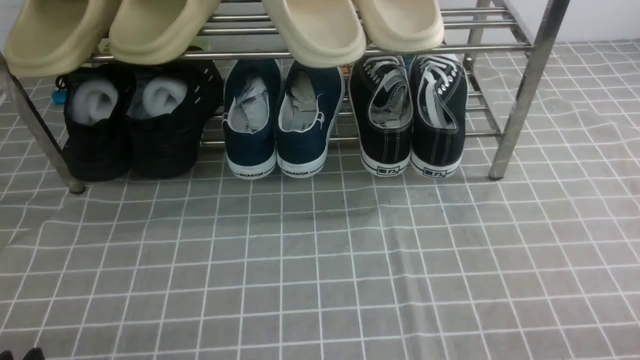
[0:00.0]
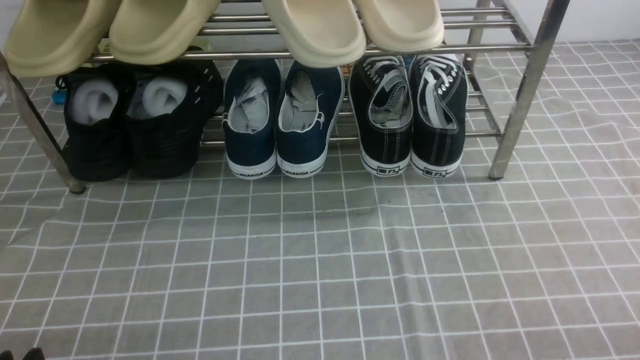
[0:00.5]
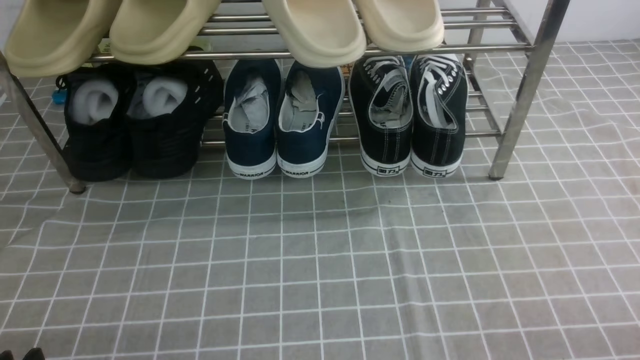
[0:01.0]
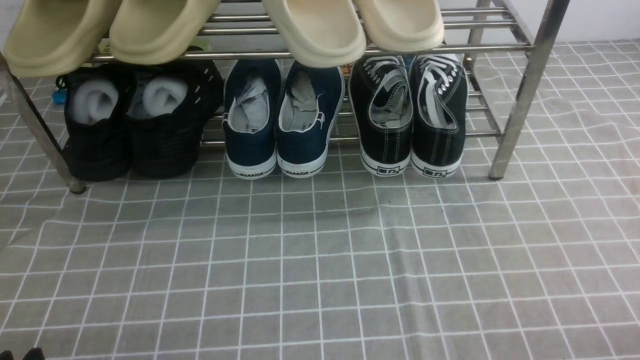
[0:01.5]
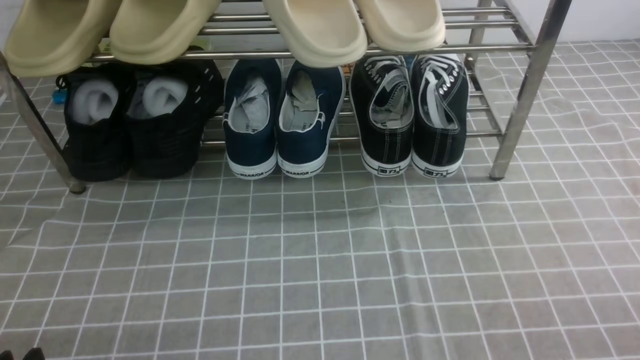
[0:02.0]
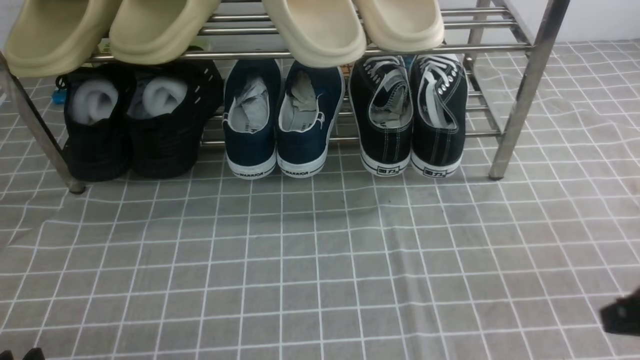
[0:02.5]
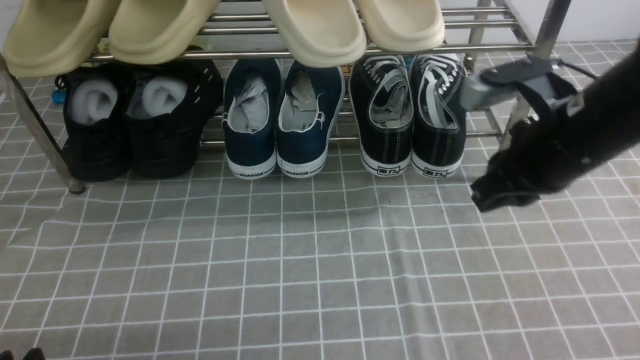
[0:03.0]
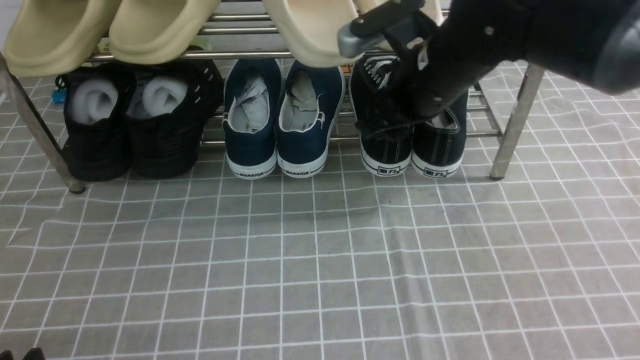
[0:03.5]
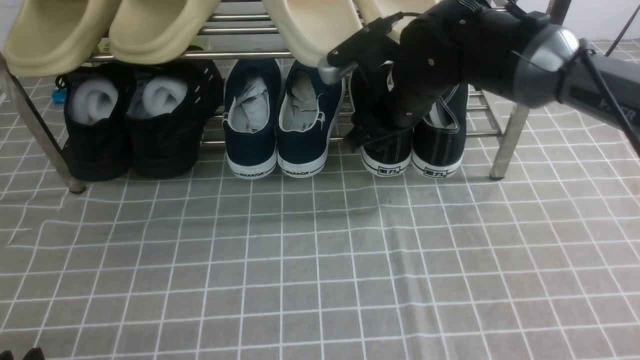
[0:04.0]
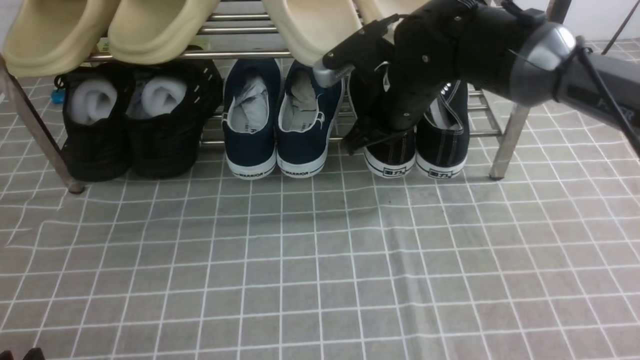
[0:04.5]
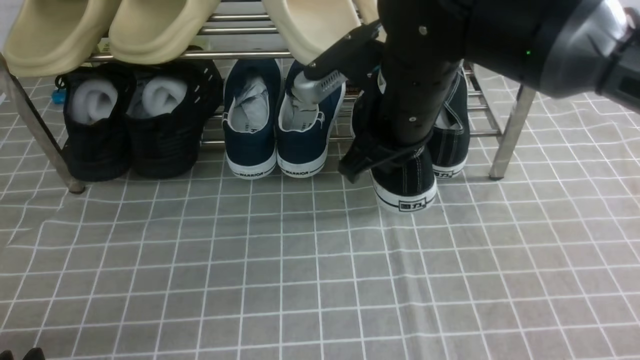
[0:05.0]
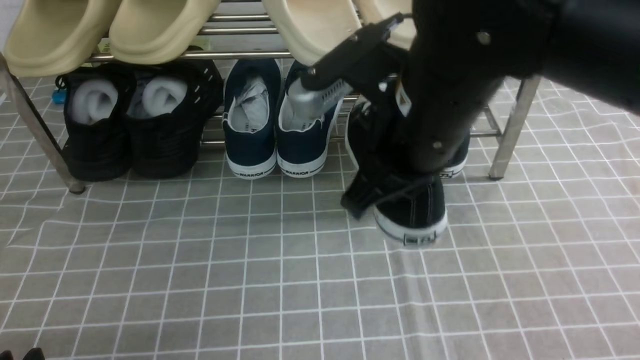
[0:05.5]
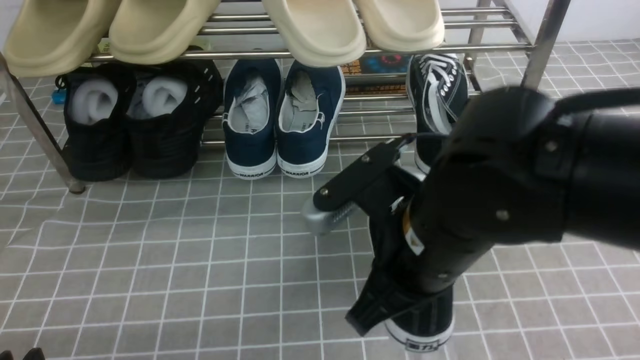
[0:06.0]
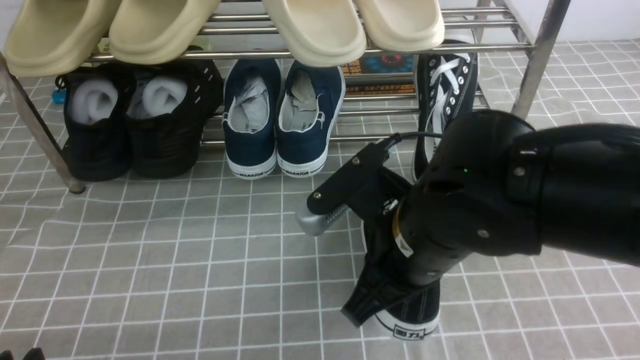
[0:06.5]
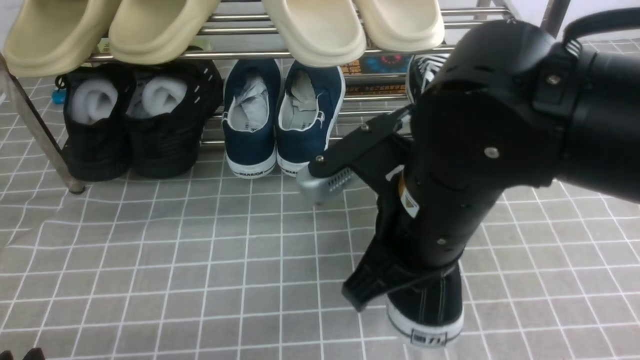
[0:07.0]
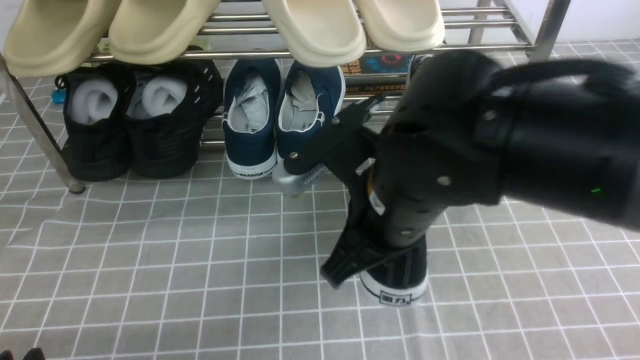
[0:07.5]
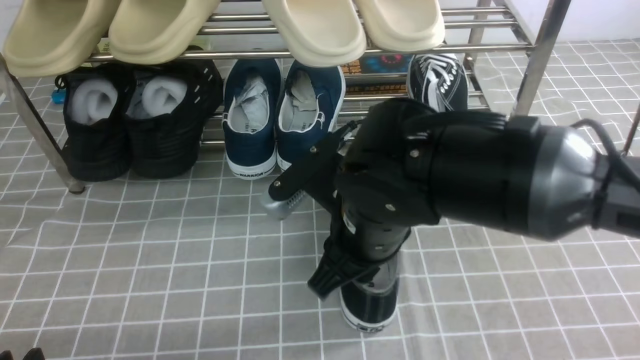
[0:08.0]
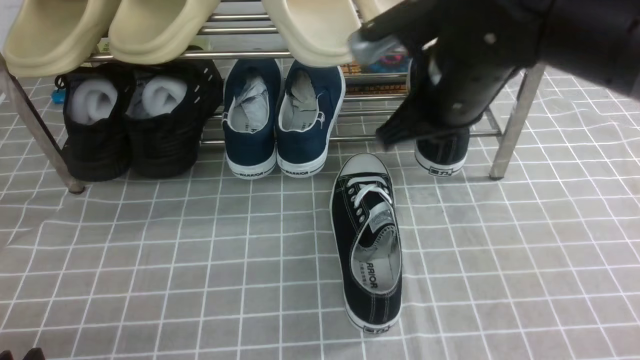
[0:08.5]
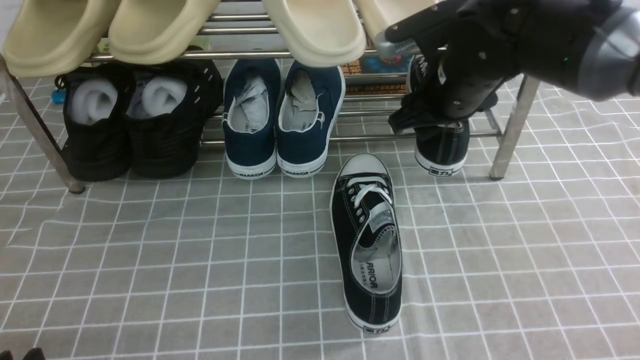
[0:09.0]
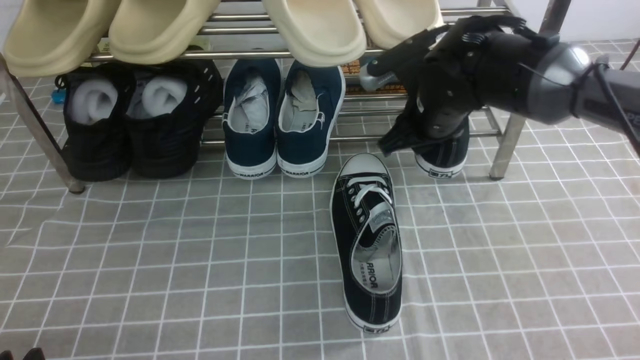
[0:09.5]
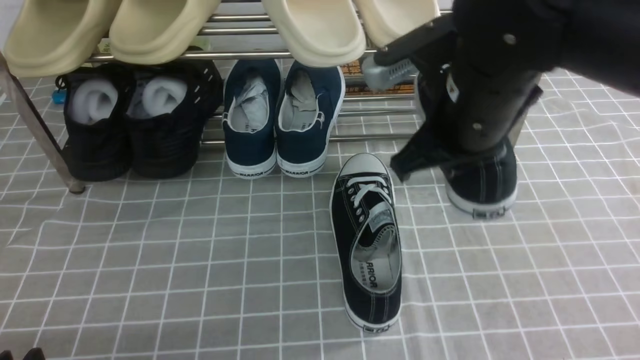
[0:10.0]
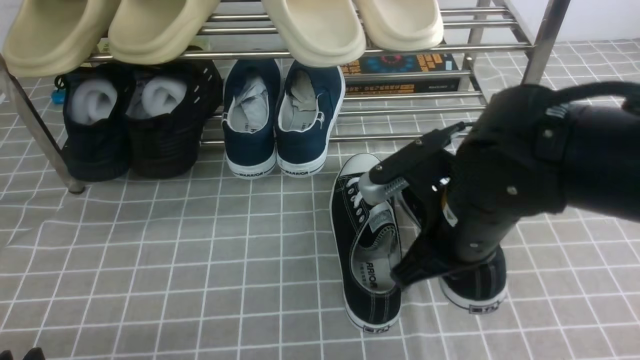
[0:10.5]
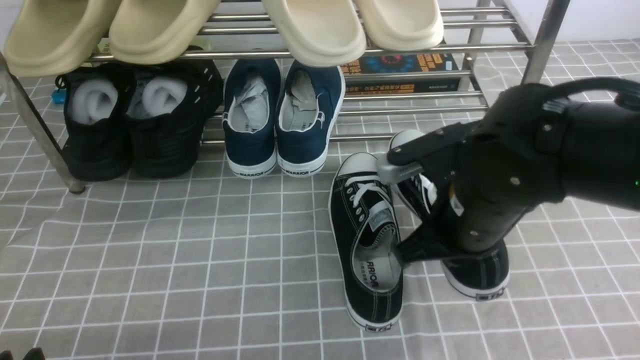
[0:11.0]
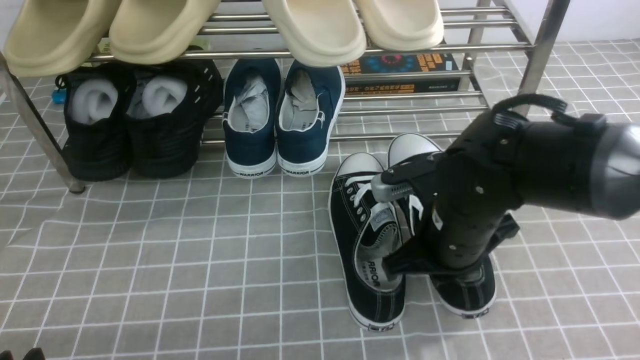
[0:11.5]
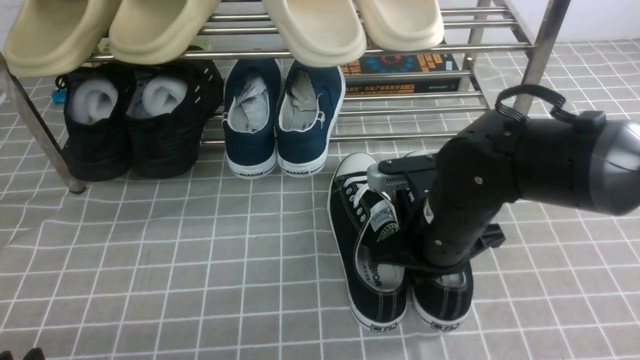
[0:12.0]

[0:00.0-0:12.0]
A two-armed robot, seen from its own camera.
Step, 0:00.0 to 0:04.0: use the right arm to clamp a shoe on the right side of the shoe rack.
Step, 0:04.5 to 0:08.0: use the right arm to take out the clamped shoe from the shoe rack and put it down.
Step, 0:08.5 to 0:09.5: use the right arm to clamp a shoe on the right side of the shoe rack.
0:00.0 to 0:02.0: The right gripper shifts some 5 cm upward.
0:02.0 to 0:04.0: The right gripper shifts about 40 cm forward and to the left, and opens its fingers.
0:04.0 to 0:06.0: The right gripper shifts approximately 20 cm backward, and closes.
0:06.0 to 0:08.0: The right gripper ends up about 5 cm from where it was, and opens its fingers.
0:08.0 to 0:10.0: The right gripper shifts about 5 cm to the right, goes forward and returns, about 15 cm each way, and closes up.
0:10.0 to 0:12.0: The right gripper is displaced downward by about 10 cm.

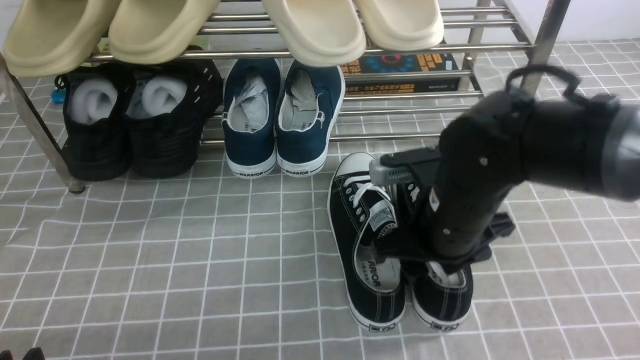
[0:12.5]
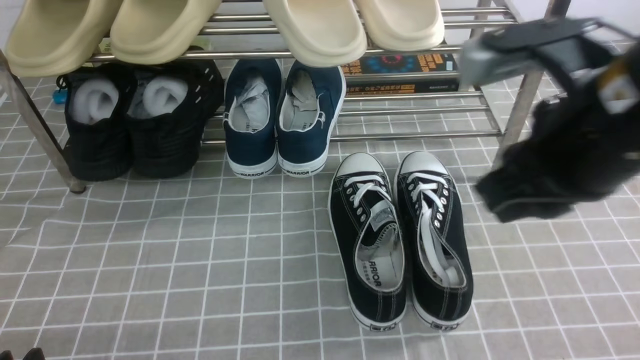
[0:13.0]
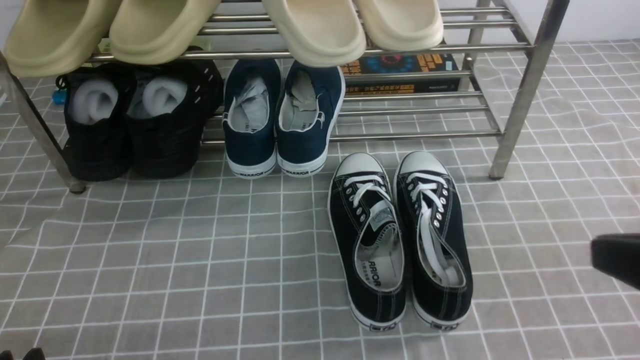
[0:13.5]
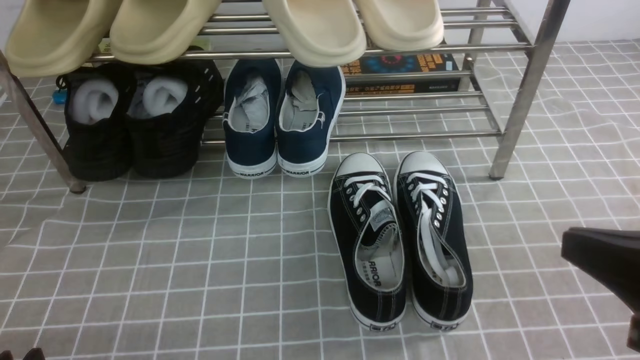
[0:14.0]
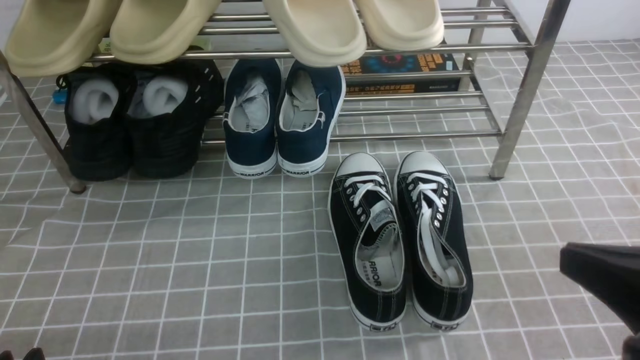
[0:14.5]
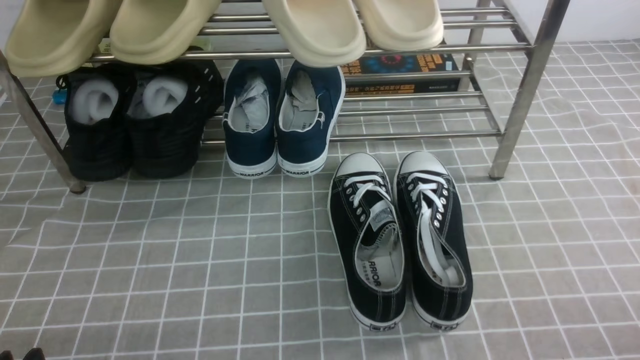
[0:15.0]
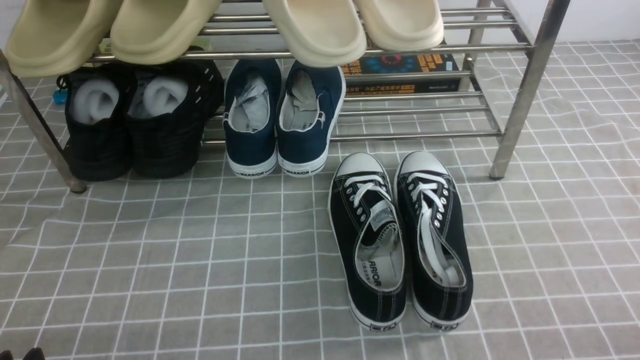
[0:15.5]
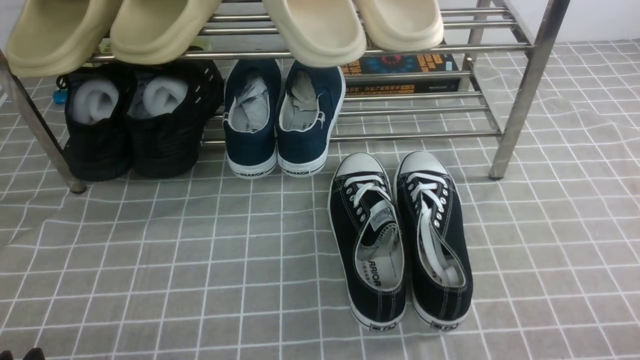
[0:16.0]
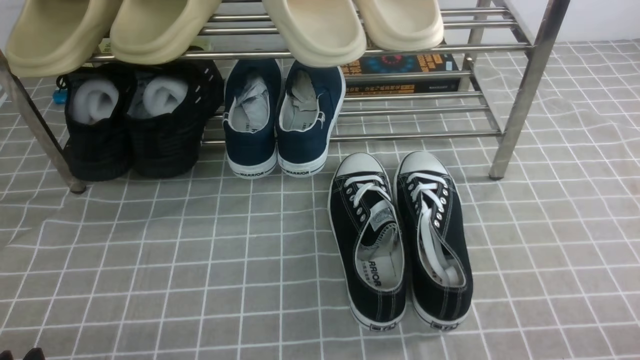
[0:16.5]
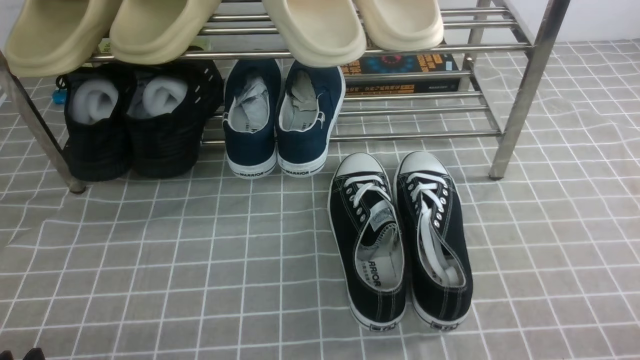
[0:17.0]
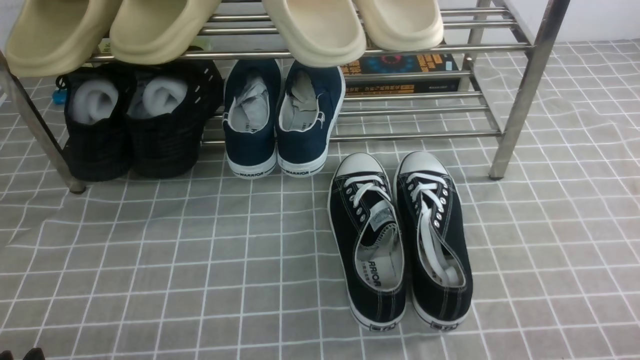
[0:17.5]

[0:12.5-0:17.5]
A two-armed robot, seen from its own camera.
0:12.5 to 0:15.0: The right gripper is displaced backward and to the right by roughly 30 cm, and closes.
